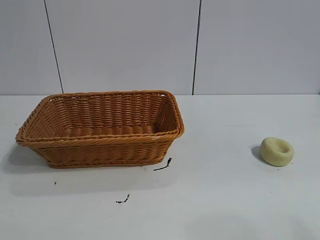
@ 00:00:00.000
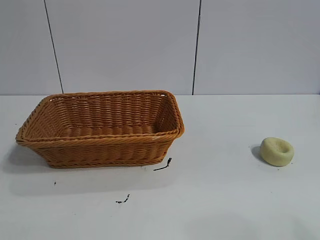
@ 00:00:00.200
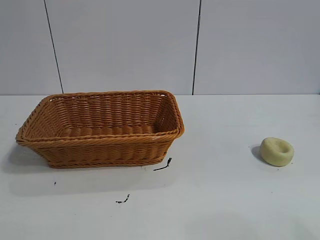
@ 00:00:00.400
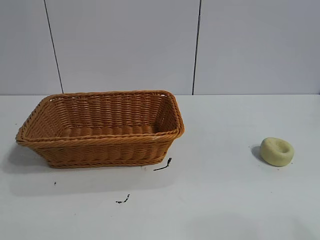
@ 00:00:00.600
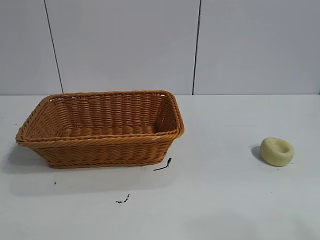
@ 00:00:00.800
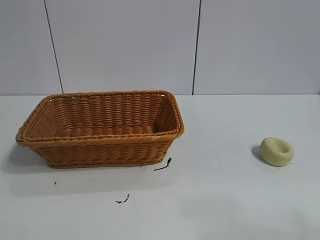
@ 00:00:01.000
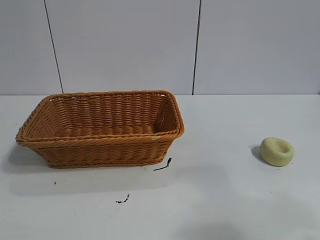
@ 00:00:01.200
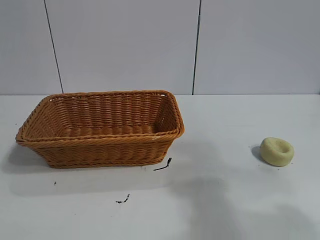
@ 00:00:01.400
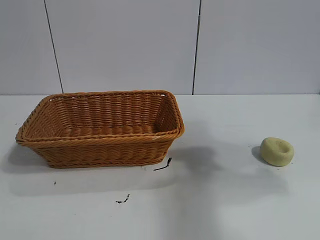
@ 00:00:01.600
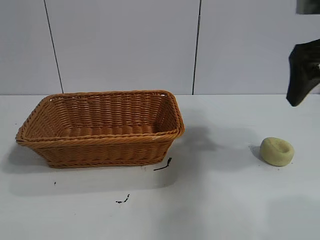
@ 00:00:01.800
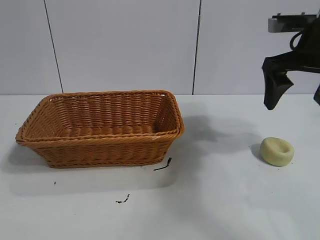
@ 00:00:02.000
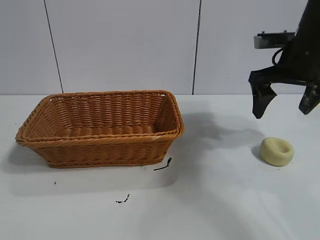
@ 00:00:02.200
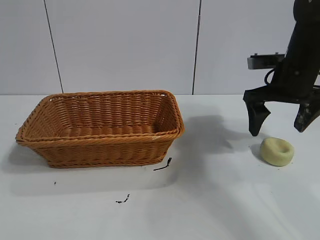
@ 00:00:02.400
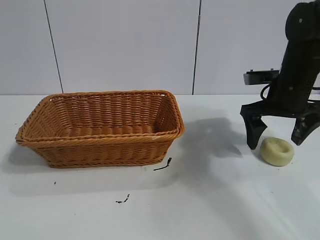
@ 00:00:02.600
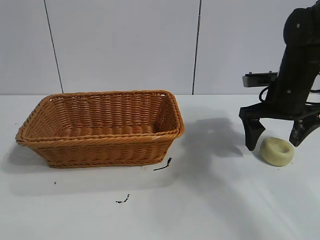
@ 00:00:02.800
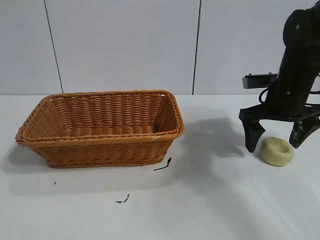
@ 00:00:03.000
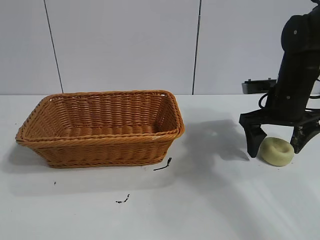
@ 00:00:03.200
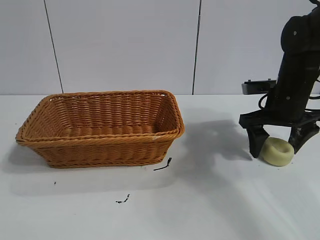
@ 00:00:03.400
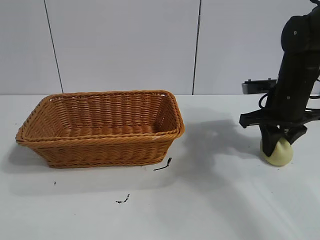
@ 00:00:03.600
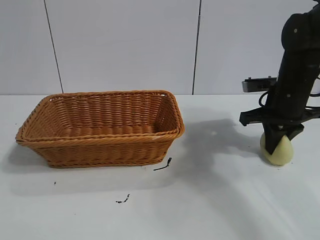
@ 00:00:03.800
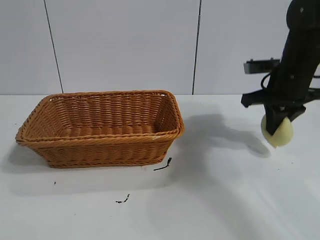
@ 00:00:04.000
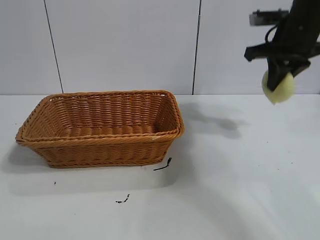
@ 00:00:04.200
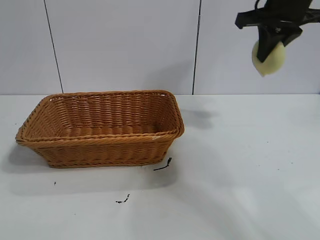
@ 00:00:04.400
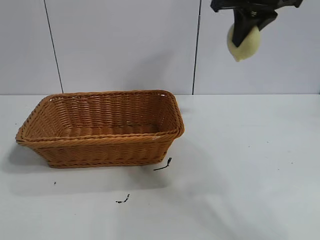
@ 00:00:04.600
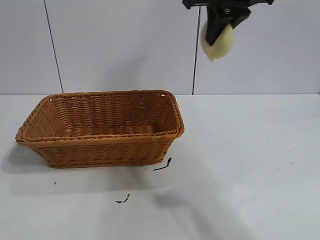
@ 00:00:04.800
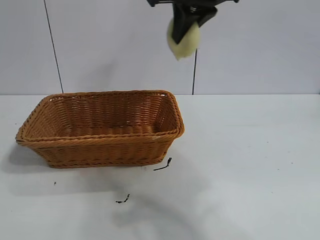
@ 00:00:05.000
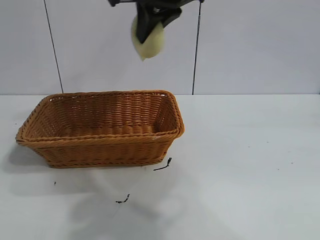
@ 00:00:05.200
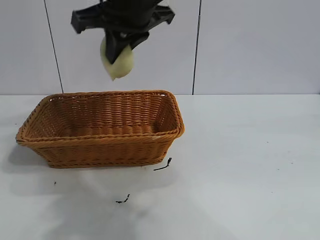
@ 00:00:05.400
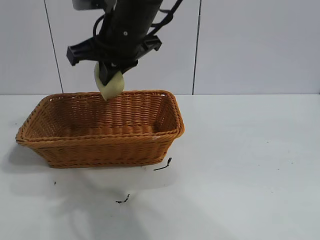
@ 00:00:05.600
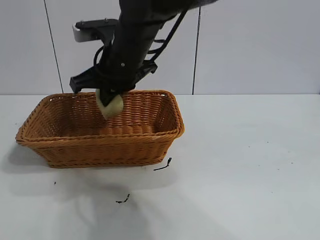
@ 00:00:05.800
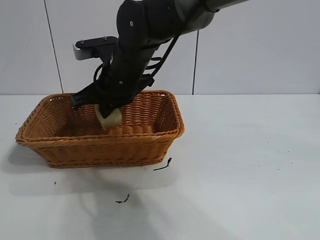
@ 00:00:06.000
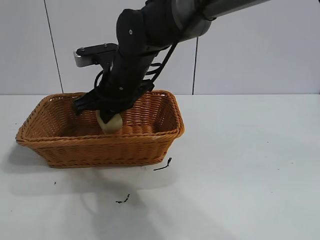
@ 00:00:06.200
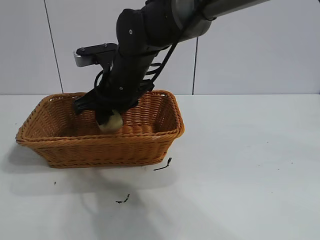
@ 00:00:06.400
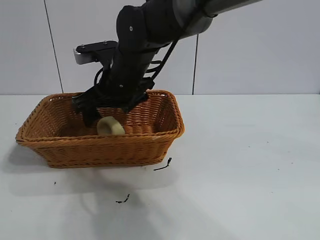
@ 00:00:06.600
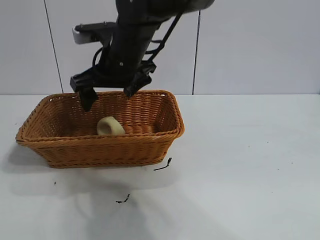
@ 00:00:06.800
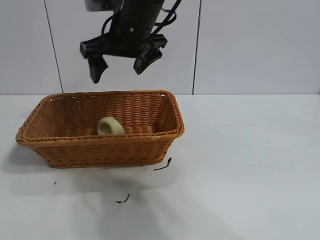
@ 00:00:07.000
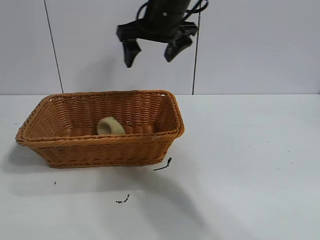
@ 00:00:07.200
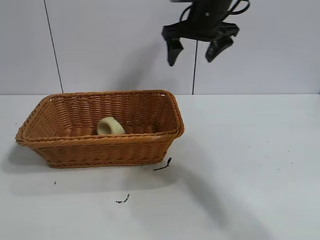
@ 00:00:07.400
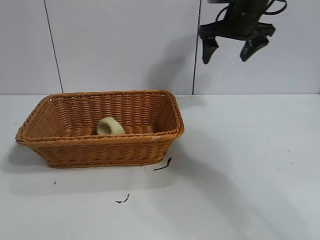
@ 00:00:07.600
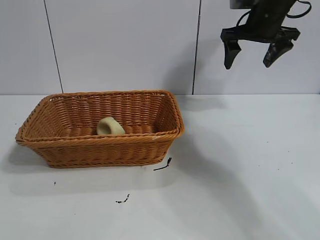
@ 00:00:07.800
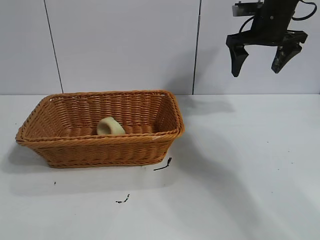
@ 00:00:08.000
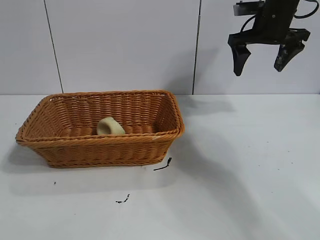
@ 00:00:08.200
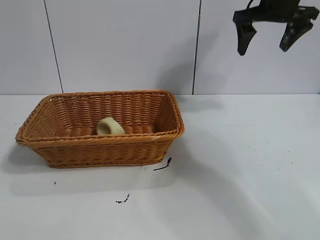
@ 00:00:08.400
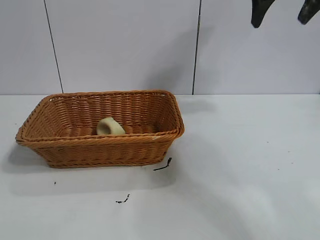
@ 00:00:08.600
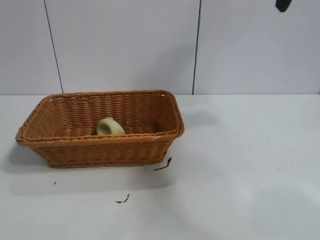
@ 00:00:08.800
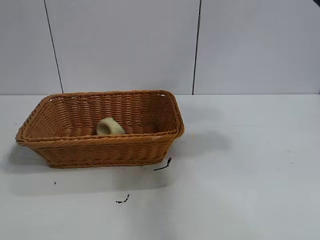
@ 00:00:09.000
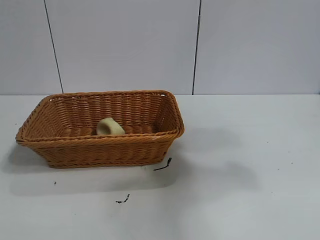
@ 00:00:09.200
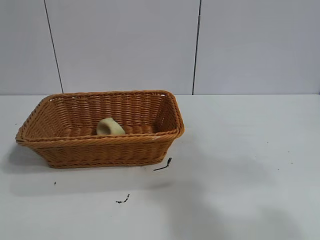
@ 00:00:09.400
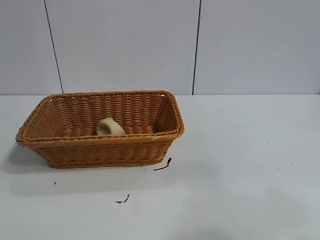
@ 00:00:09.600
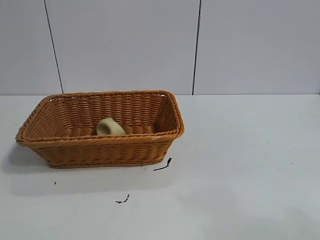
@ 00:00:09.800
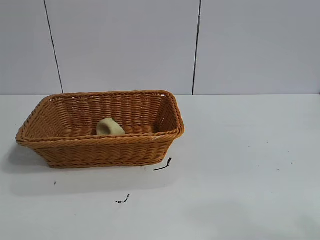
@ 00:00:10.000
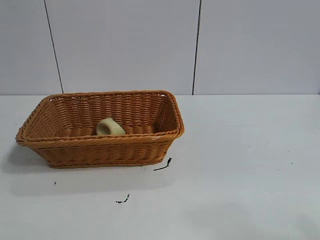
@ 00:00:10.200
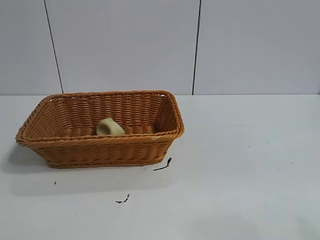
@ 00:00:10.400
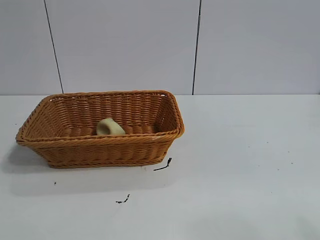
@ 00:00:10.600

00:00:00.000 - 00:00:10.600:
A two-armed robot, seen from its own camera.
Task of the whole recording: pick up the egg yolk pastry and put it into the basket.
Step, 00:00:00.800 - 00:00:03.400: Grasp egg yolk pastry with right gripper.
Step, 00:00:03.800 - 00:00:06.400: Place the egg yolk pastry in the basket with right gripper.
